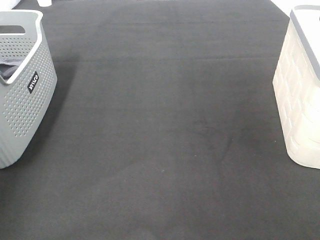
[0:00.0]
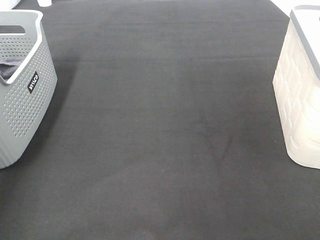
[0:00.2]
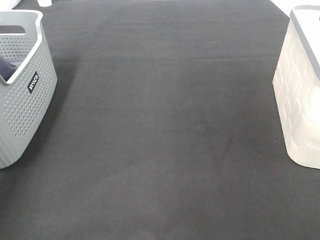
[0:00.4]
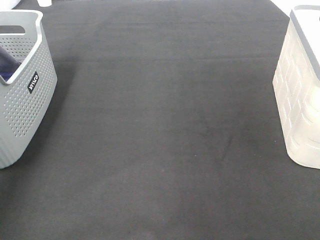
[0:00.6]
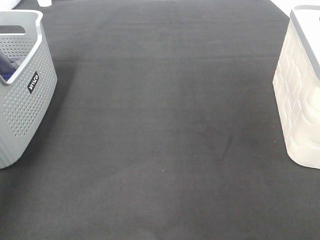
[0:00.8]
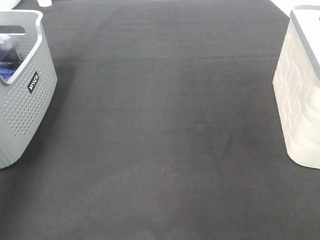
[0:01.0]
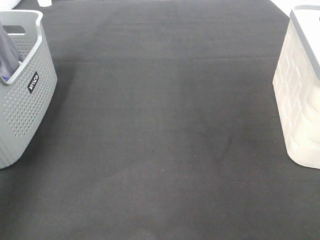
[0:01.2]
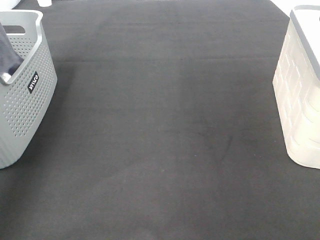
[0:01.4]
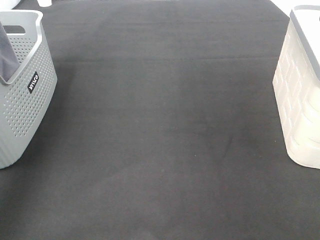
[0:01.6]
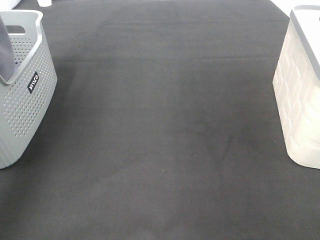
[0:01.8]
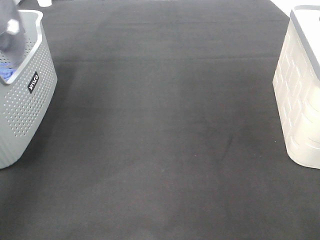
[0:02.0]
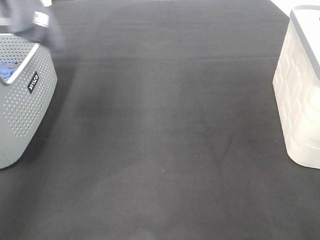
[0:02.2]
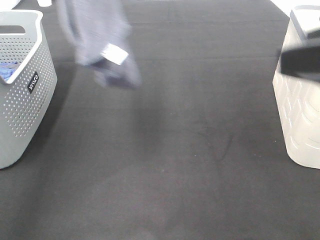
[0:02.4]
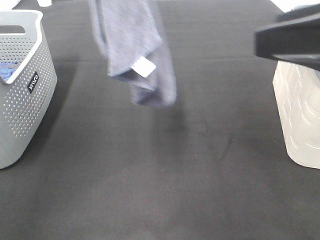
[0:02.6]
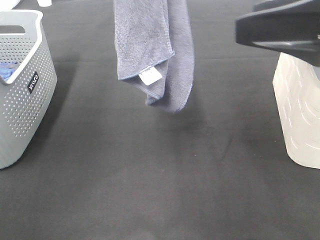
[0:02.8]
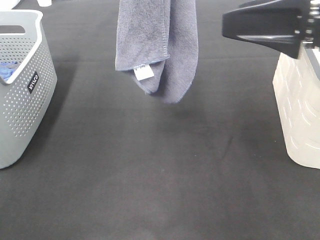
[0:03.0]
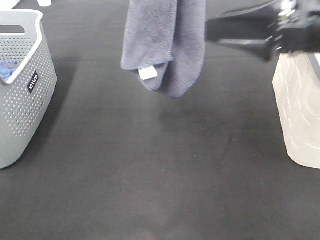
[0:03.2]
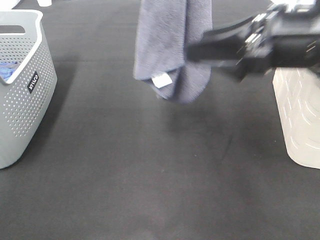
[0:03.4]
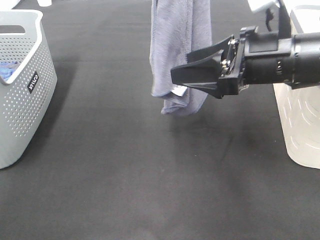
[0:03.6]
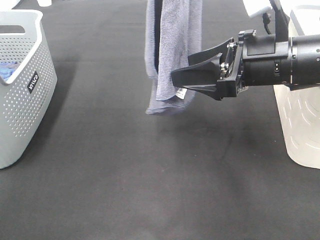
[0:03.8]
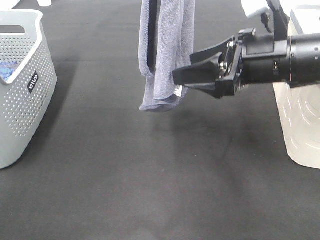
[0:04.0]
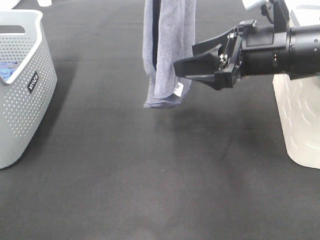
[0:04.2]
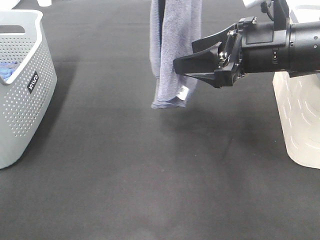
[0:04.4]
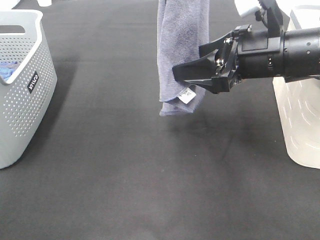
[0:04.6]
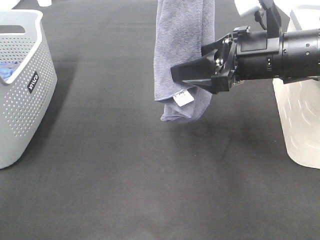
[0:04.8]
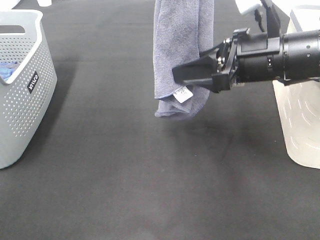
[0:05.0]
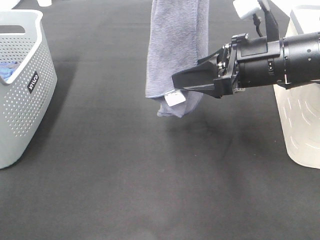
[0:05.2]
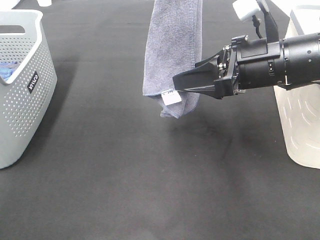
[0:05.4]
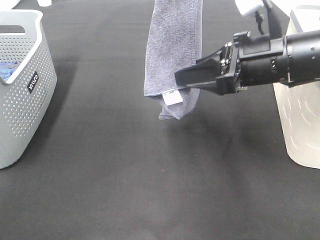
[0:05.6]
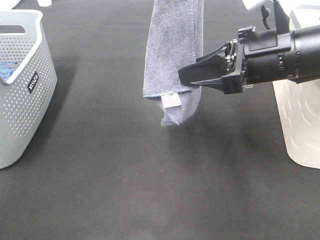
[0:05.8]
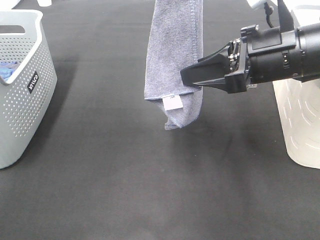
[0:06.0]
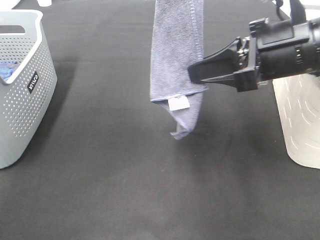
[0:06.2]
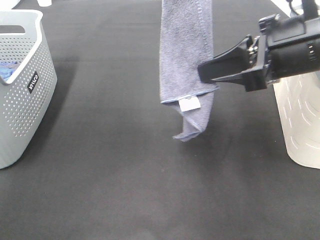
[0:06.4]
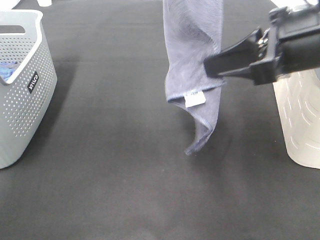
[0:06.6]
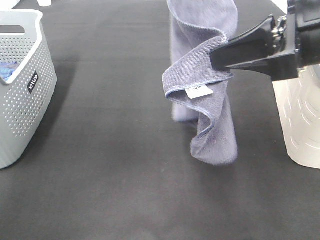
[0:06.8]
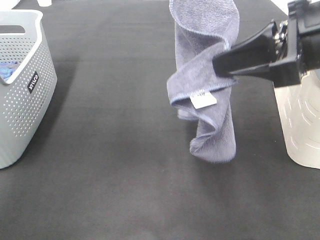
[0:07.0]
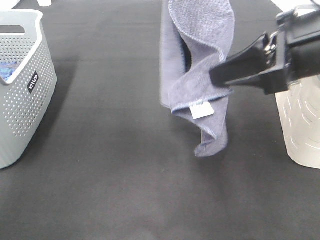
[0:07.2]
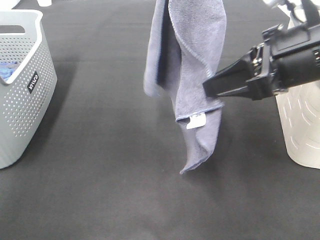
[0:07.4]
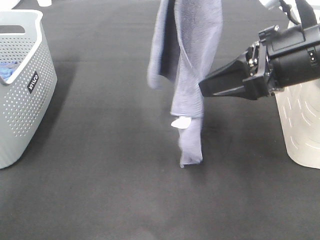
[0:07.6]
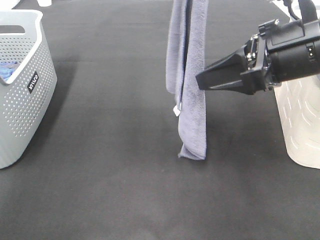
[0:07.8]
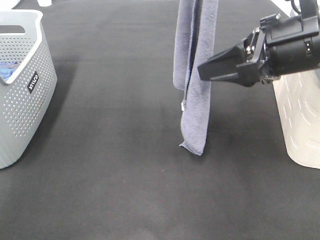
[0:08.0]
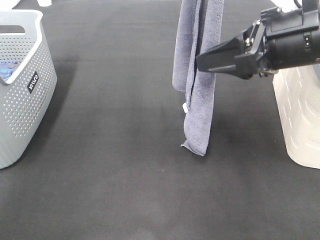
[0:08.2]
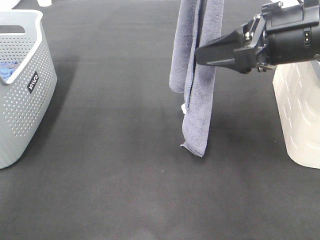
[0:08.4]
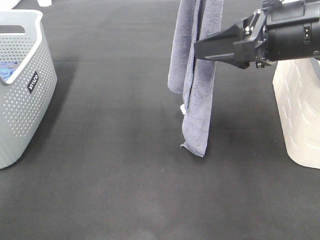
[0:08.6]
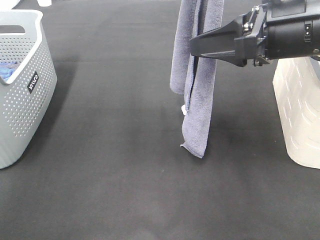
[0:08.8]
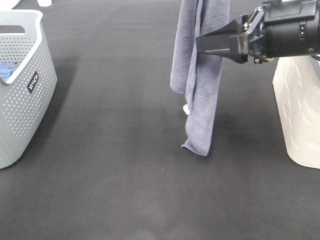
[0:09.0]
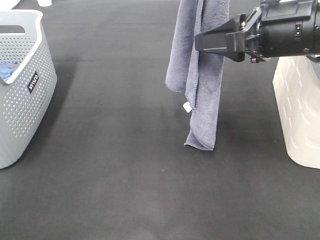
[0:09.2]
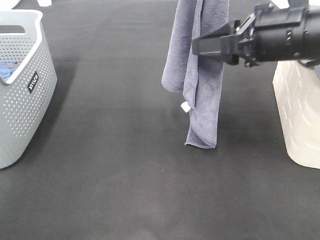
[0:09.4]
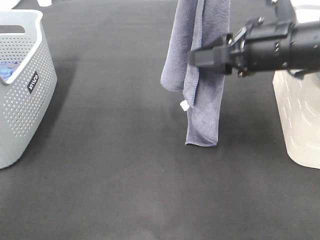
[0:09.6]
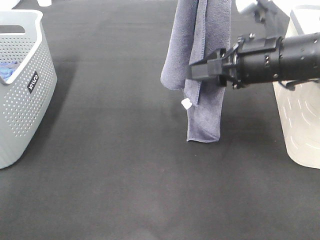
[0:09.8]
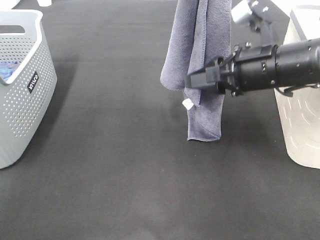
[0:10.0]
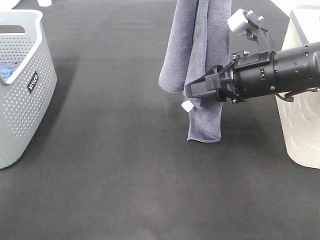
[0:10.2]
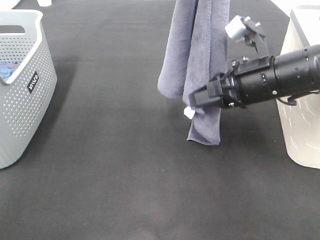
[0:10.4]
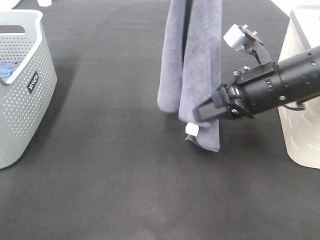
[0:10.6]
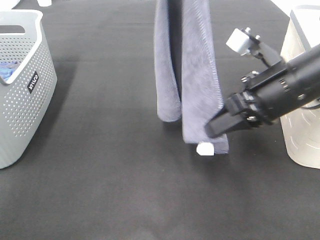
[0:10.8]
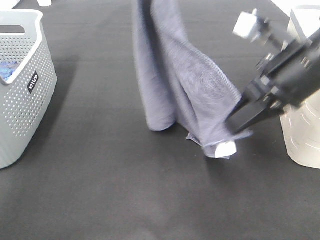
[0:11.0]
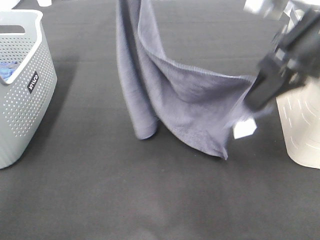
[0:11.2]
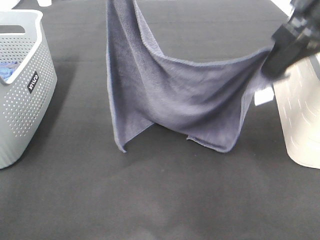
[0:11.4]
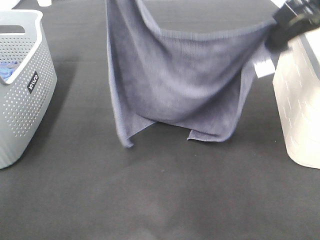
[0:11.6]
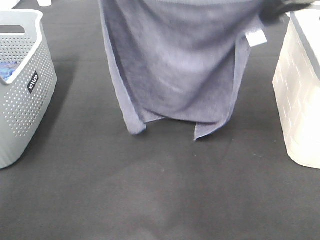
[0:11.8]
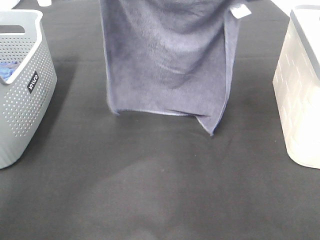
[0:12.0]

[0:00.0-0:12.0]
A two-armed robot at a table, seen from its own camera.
Task of the whole recording: Remove the towel and place it.
Step, 0:01.2 to 0:08.2: Right hand: grab a corner of the grey towel and straighten it.
Step, 0:08.4 to 0:11.4: Right hand: spread the grey towel flat on the table.
0:00.0 to 0:01.6: The left gripper heads upward, covering roughly 30 cm.
0:01.6 to 0:03.0: The right gripper heads forward, covering approximately 20 cm. Meanwhile the left gripper travels to the right by about 20 cm.
0:03.0 to 0:04.4: The right gripper is displaced downward and forward by some 10 cm.
0:04.4 to 0:06.0: The right gripper closes up.
0:06.0 to 0:07.6: The left gripper ends up some 5 cm from where it was.
0:09.0 to 0:10.4: The right gripper shifts approximately 10 cm downward, and closes its fingers.
0:10.4 to 0:12.0: The left gripper is displaced forward, to the left and downward by about 15 cm. Meanwhile the right gripper heads upward and forward, covering approximately 20 cm.

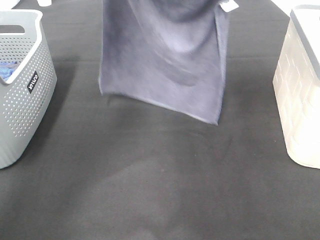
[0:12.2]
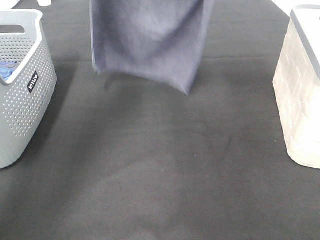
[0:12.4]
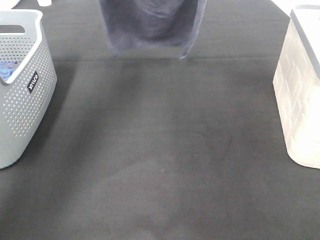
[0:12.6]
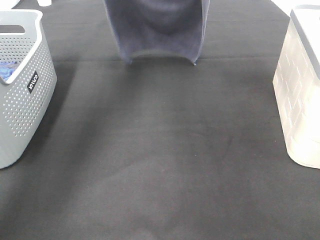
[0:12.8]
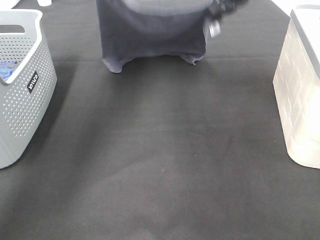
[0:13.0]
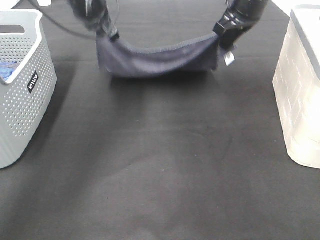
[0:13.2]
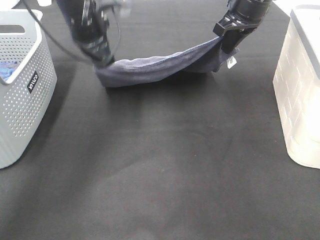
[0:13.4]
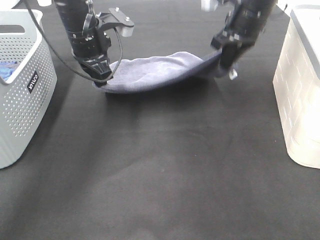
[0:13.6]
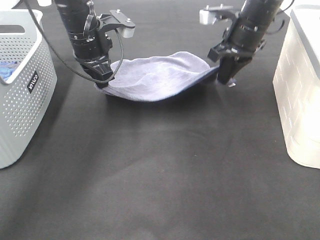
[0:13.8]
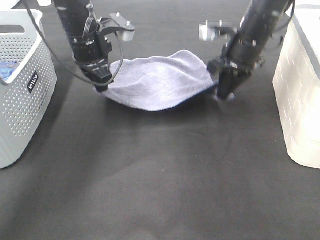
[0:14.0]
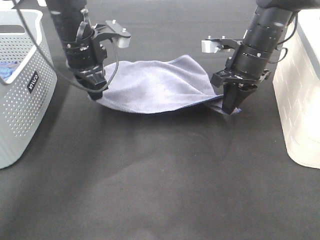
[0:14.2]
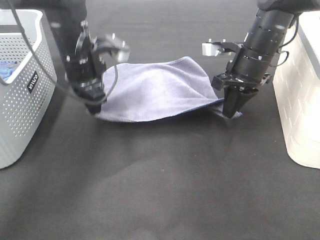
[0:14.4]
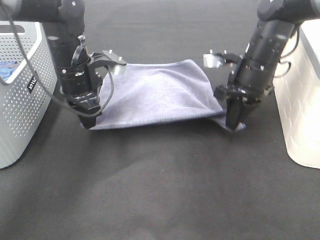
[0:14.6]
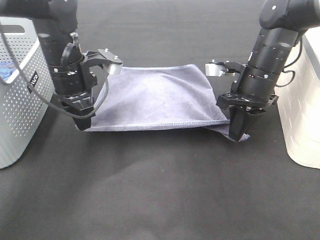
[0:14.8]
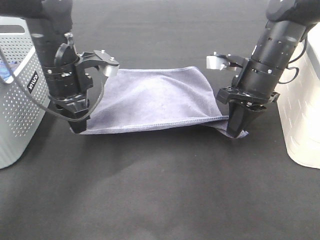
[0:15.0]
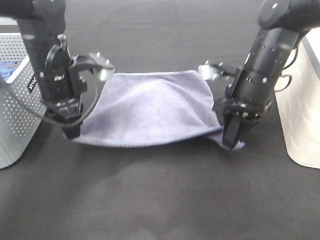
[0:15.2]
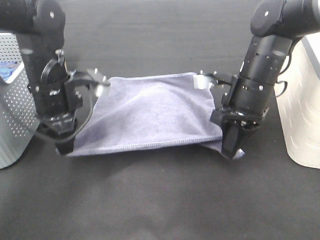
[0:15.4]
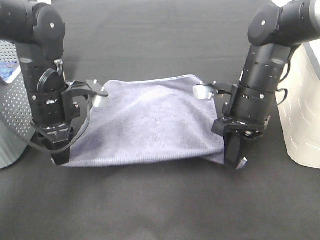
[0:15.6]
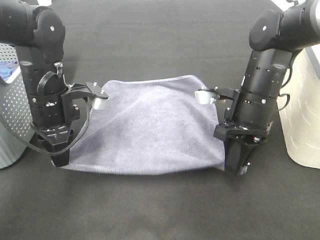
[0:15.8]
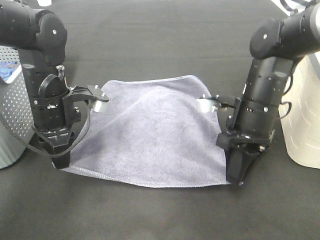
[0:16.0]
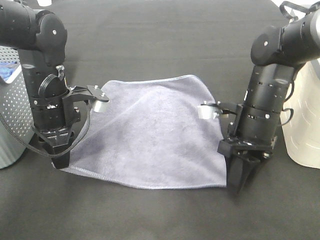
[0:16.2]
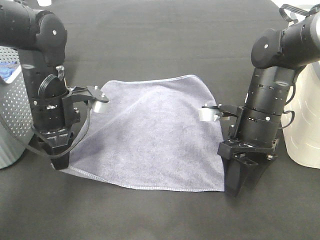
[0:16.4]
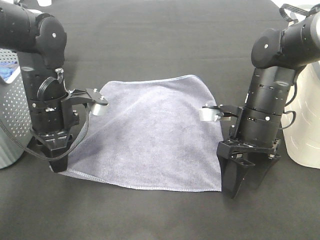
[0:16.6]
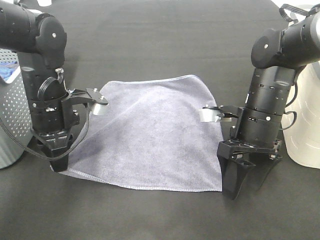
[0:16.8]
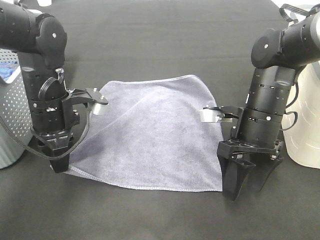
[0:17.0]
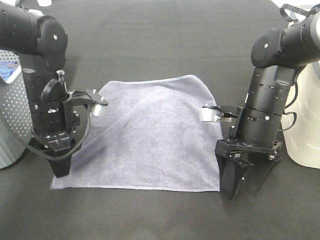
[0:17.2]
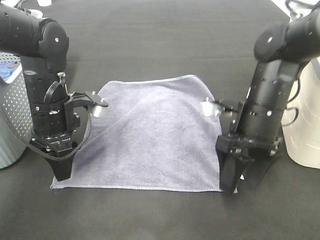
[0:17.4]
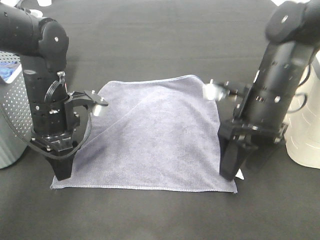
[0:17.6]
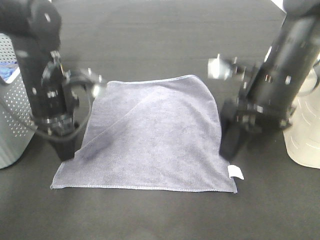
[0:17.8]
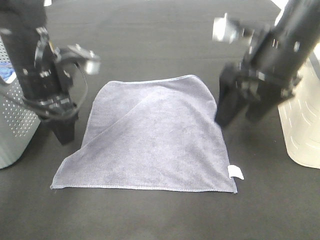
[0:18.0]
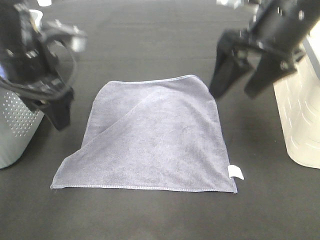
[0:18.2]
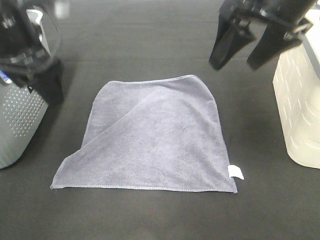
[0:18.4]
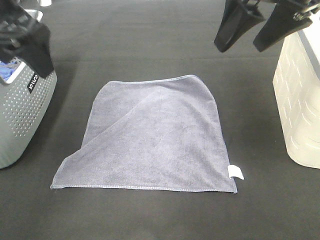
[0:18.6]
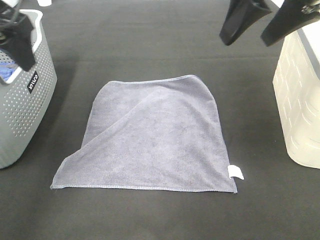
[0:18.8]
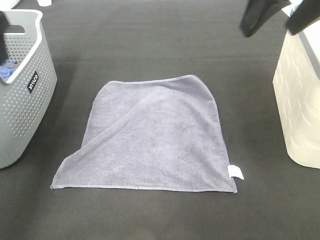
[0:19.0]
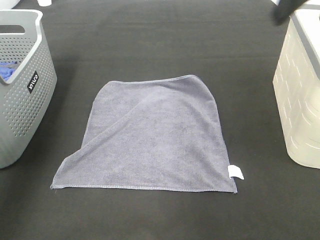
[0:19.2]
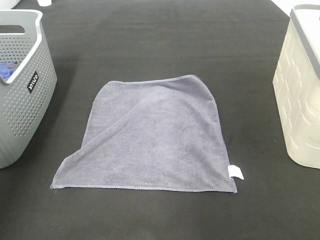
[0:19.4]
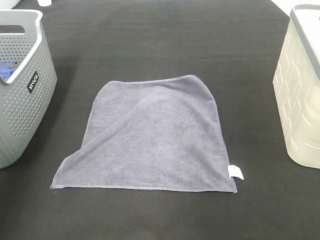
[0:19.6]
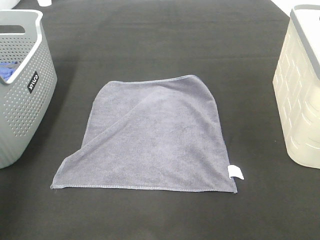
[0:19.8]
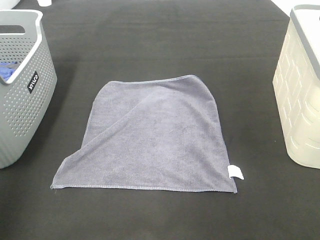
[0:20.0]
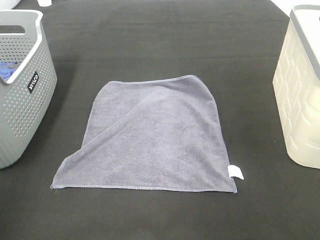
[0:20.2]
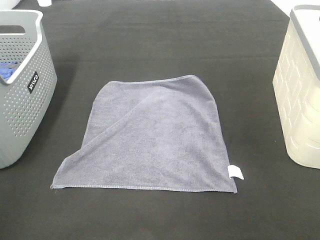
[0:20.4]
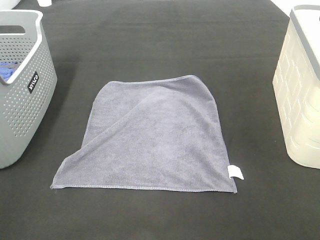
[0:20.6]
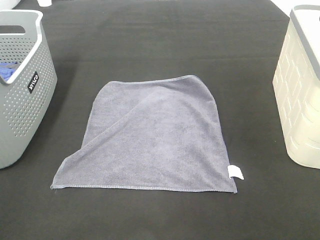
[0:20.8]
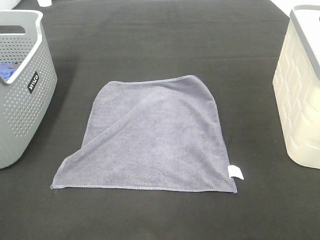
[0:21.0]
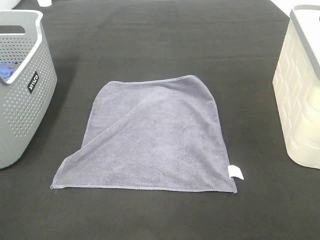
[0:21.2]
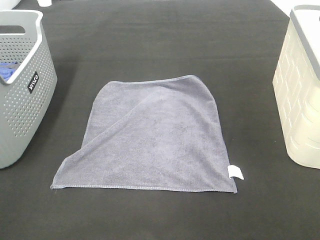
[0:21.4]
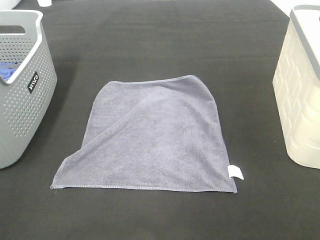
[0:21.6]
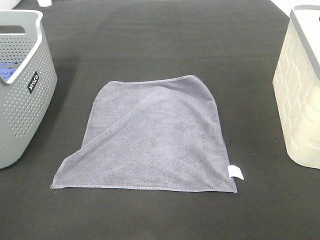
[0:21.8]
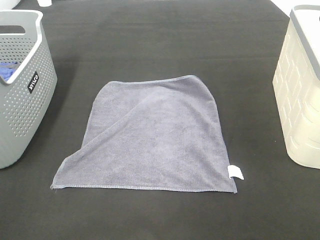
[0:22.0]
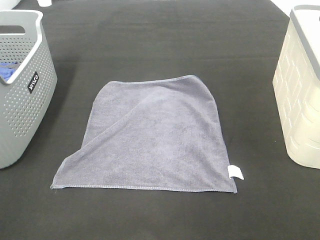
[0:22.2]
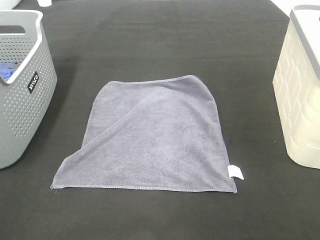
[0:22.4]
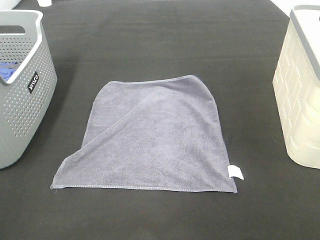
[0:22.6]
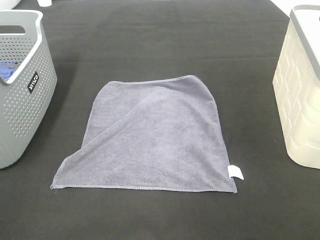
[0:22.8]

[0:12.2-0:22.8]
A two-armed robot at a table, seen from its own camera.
Task of the whole recording: Remove the towel and place it.
0:12.2 to 0:13.8: The two grippers go roughly 15 cm downward.
0:13.8 to 0:15.2: The two grippers go some 10 cm backward.
0:15.2 to 0:16.8: The right gripper moves approximately 5 cm, and opens its fingers.
0:16.8 to 0:18.2: The left gripper moves upward, roughly 10 cm, and opens up. Meanwhile the right gripper shifts roughly 15 cm upward.
0:18.2 to 0:19.8: The left gripper heads to the left, backward and upward, covering about 25 cm, while the right gripper travels backward, to the right and upward by approximately 25 cm.
0:19.8 to 0:21.2: The left gripper shifts approximately 20 cm backward and downward.
0:21.2 to 0:22.8: Both grippers stay put.
